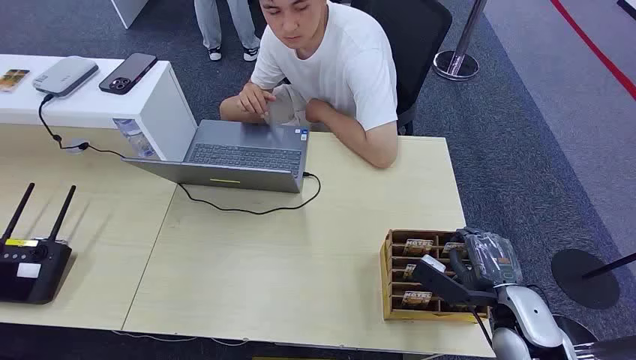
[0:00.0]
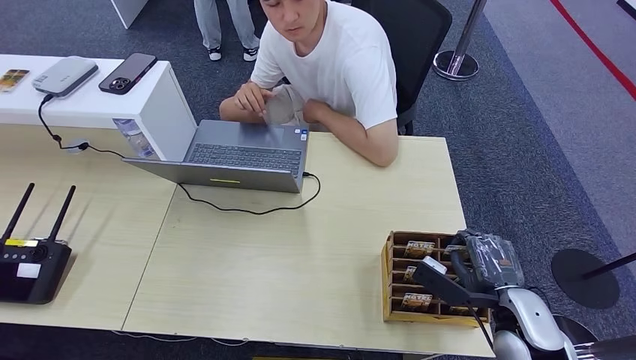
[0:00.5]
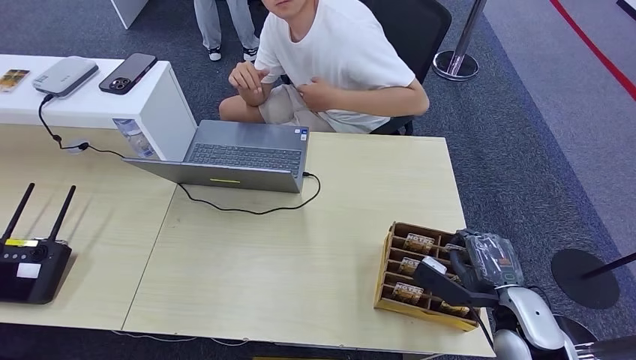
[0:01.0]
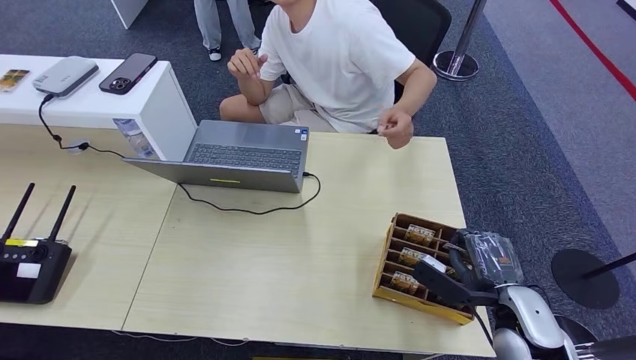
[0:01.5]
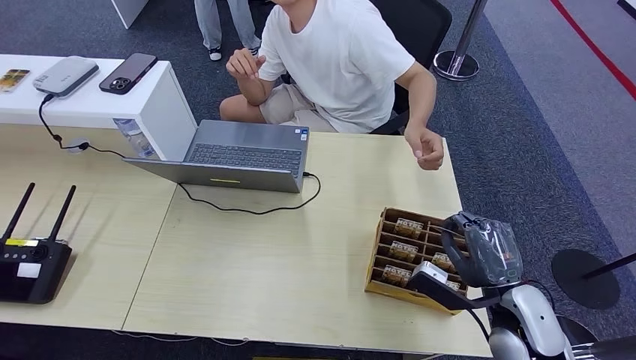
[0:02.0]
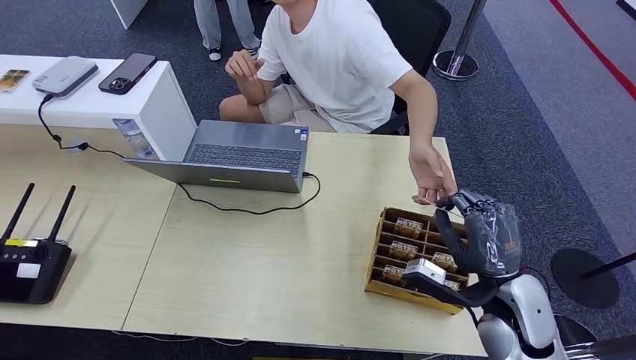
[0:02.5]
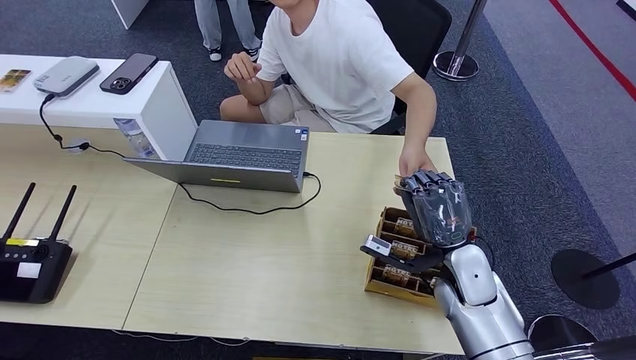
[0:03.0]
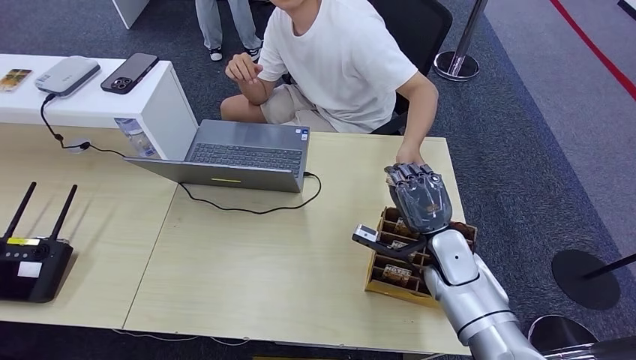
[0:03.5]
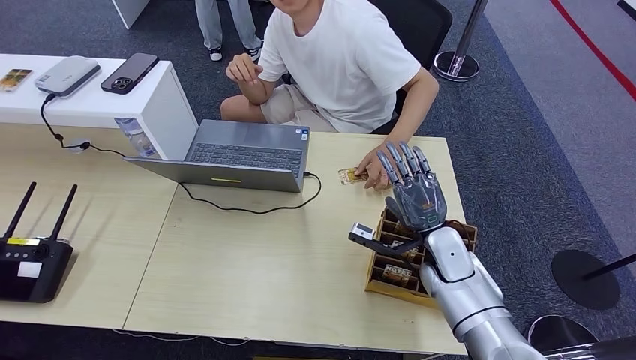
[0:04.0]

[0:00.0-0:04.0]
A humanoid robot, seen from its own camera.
Step, 0:00.0 to 0:02.0: Pick up the room card from the card holder.
Step, 0:02.5 to 0:04.0: Hand the room card to the target.
0:02.0 to 0:04.0: The right hand is displaced forward and to the left by about 15 cm.
